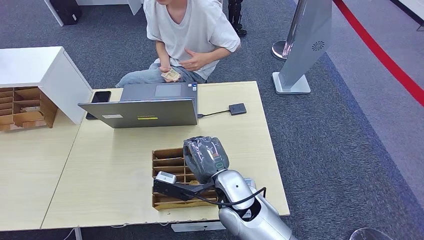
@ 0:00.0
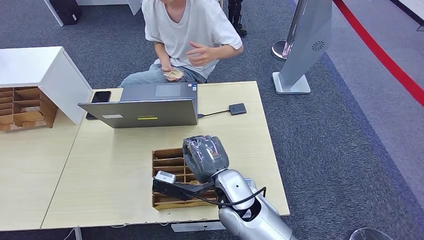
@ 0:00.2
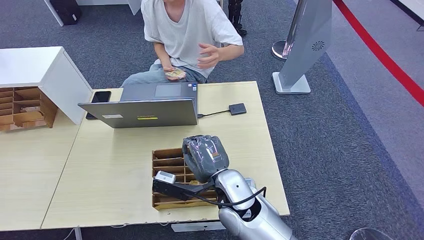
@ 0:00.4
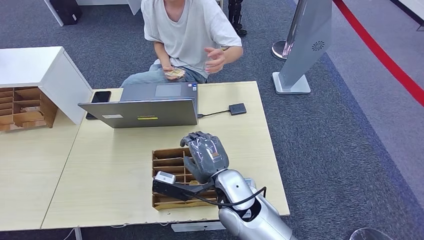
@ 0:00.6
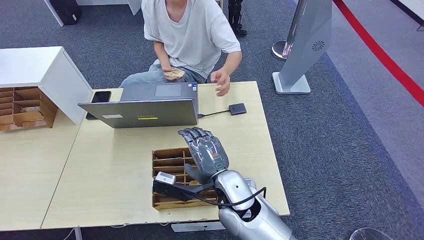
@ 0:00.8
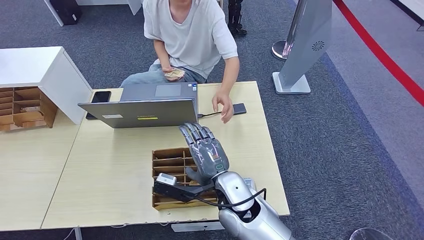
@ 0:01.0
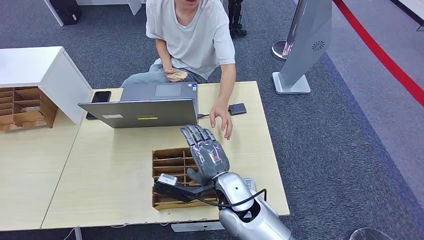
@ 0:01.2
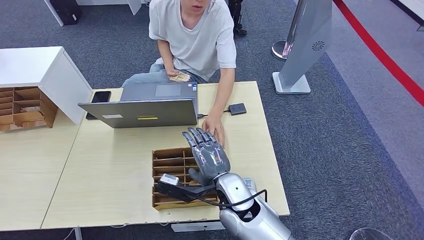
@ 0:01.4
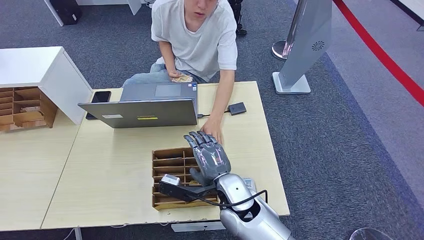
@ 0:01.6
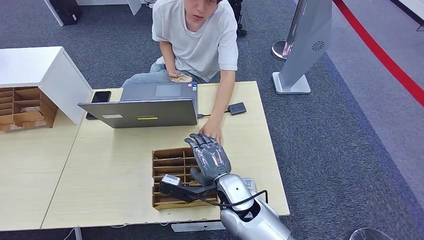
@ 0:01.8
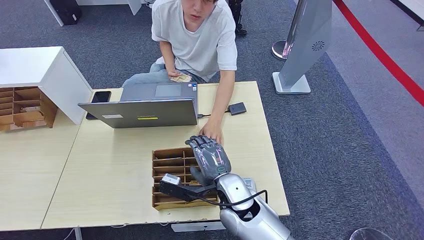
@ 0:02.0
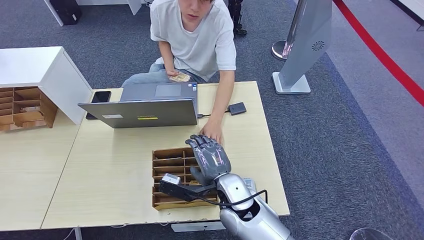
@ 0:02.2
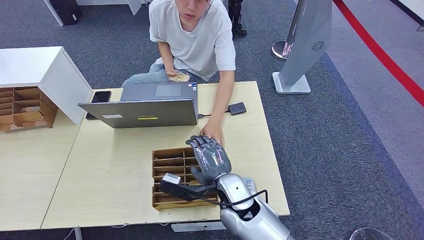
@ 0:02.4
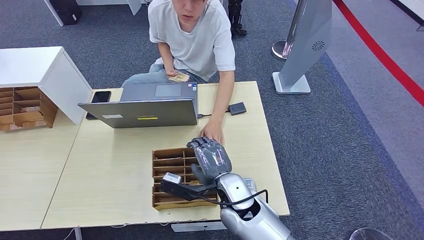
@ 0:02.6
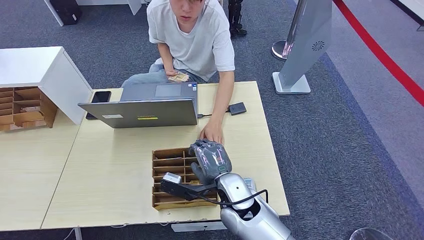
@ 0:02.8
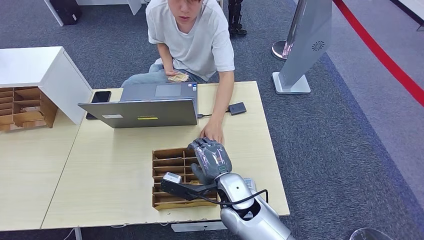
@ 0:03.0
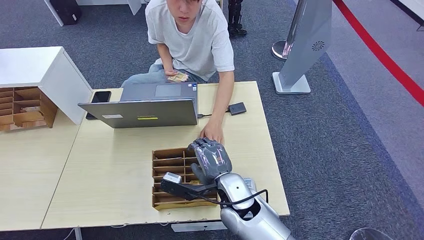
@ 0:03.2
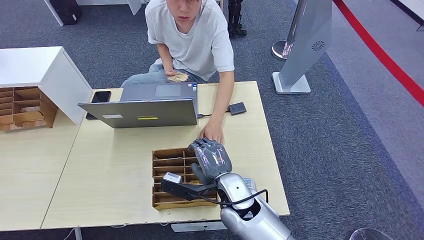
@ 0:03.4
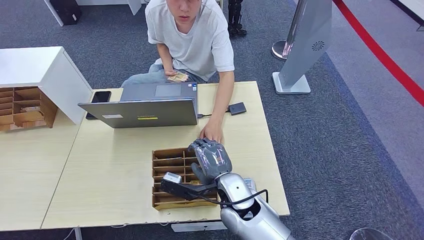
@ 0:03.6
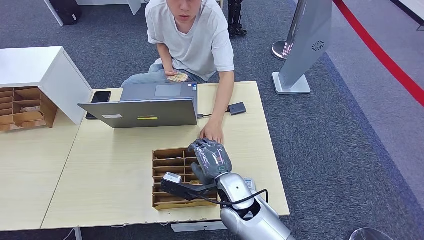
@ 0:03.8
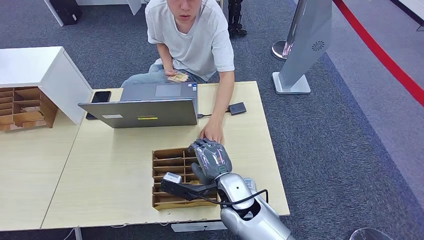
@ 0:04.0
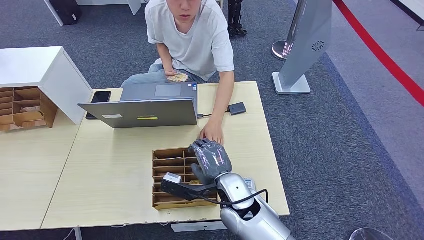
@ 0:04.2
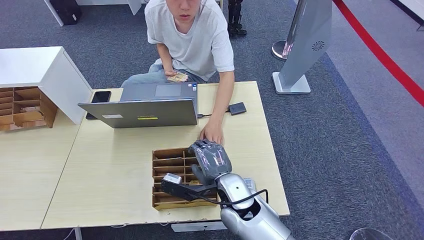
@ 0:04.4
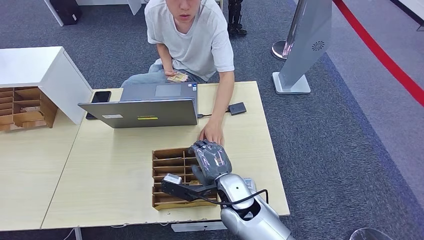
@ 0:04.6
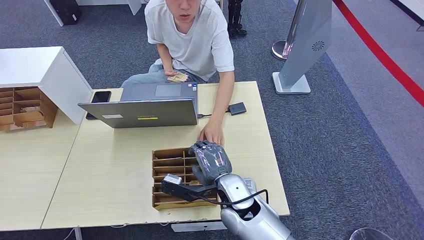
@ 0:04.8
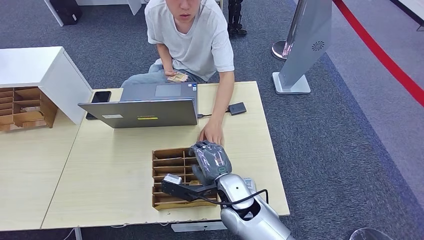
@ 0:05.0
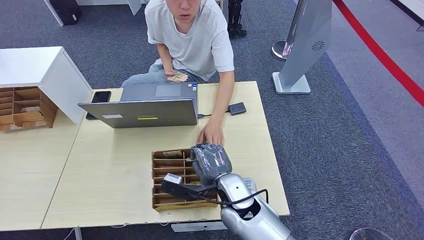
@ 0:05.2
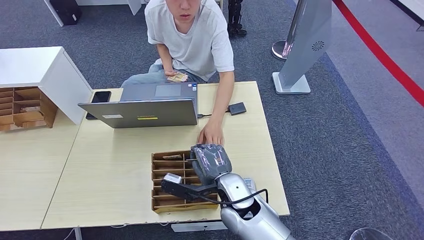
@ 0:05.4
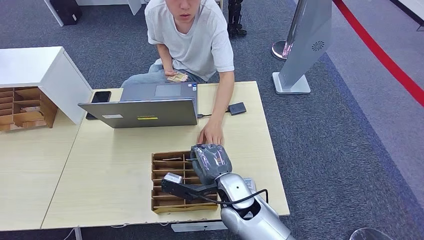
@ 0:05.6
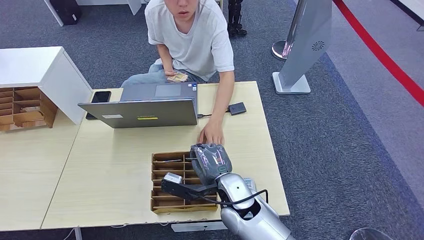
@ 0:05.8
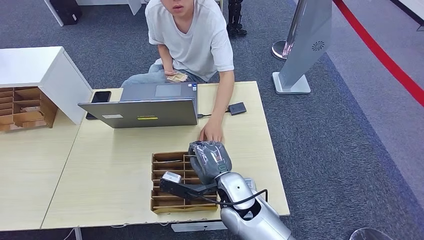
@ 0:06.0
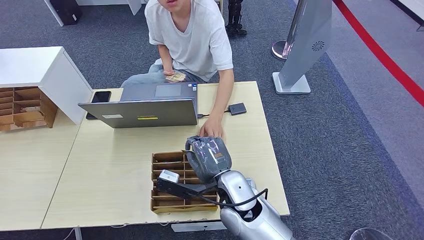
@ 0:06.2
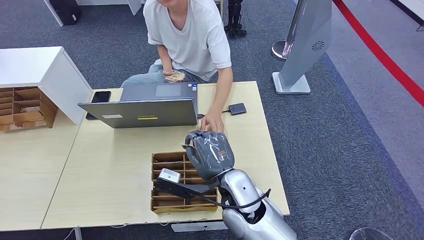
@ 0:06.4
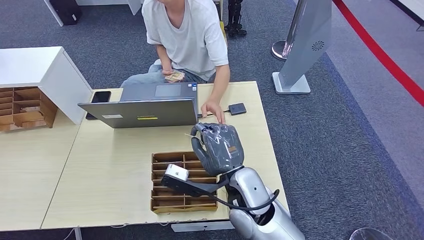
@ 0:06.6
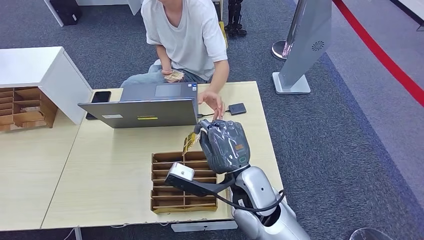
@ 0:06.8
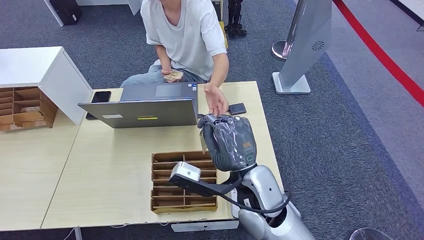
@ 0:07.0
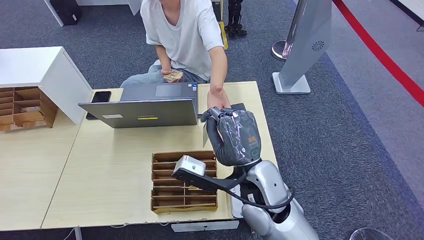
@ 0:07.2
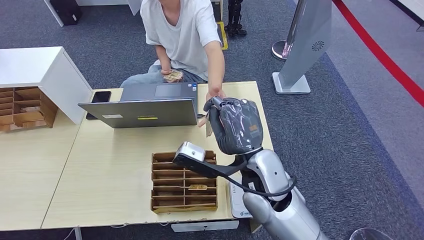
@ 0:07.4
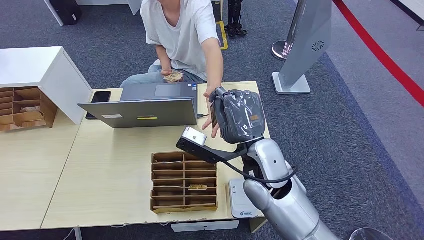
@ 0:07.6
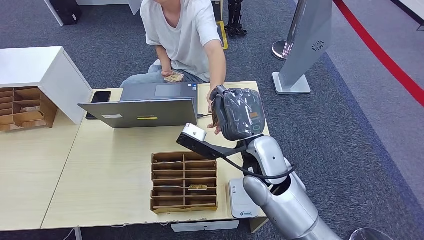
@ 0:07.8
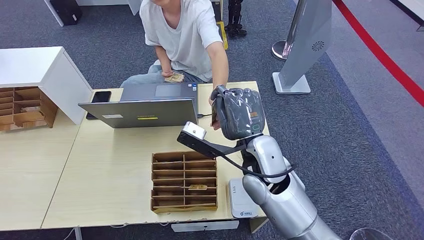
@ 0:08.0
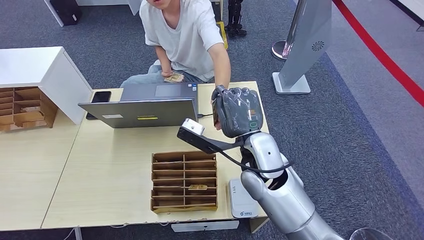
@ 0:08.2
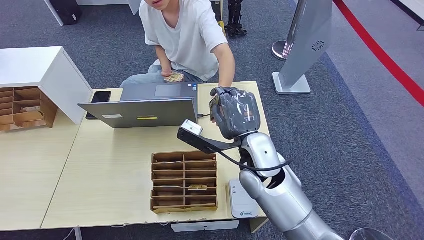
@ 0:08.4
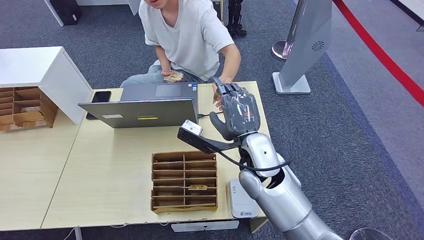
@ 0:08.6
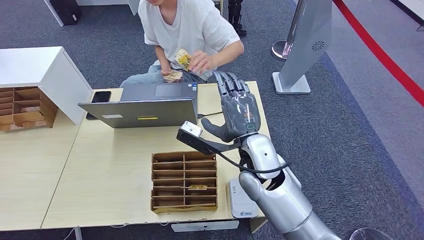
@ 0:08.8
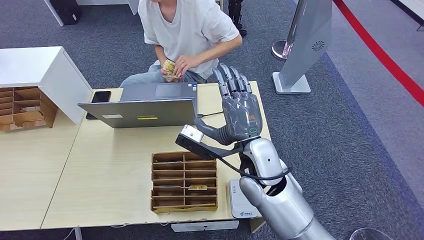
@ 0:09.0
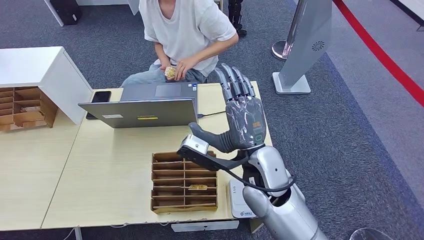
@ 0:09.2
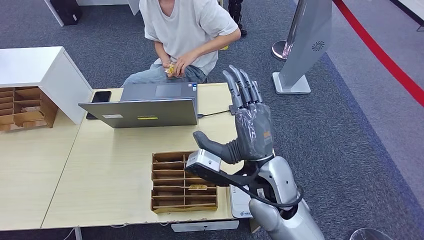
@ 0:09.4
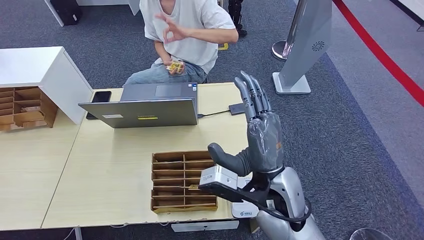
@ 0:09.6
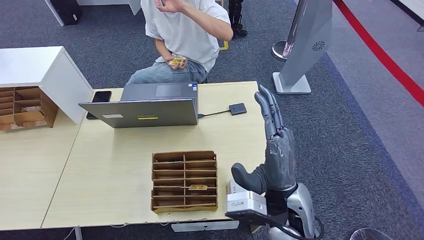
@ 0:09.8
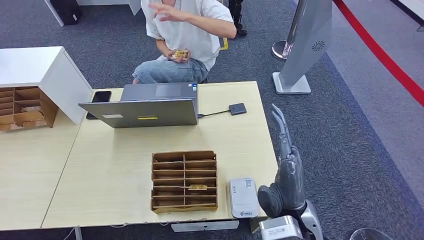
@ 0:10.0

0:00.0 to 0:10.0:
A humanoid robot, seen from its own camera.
Step, 0:00.0 to 0:07.2: Pick up the room key from the key card box.
Step, 0:07.4 to 0:10.0: Hand the room key to the person.
0:00.0 to 0:01.4: The hands stay close to where they were, moving slightly.
0:01.4 to 0:05.8: Both hands stay put.
0:05.8 to 0:07.2: The right hand is displaced upward by some 10 cm.
0:07.2 to 0:08.6: The right hand goes some 5 cm forward.
0:08.6 to 0:10.0: The right hand moves backward and to the right, some 15 cm.
